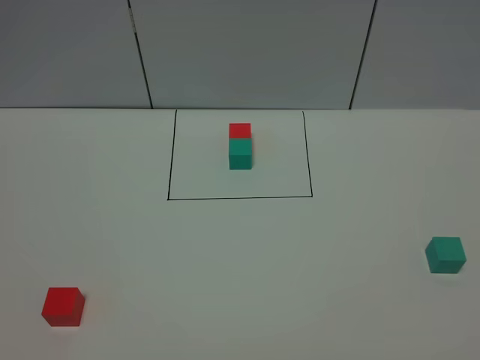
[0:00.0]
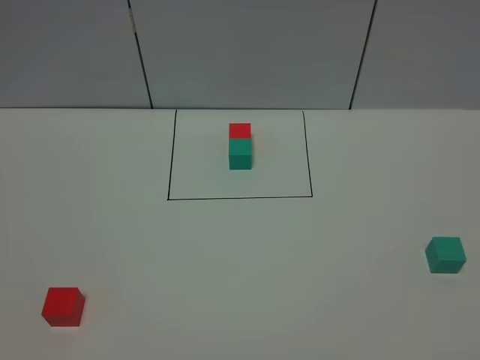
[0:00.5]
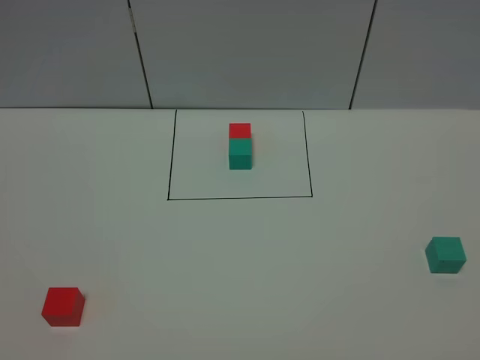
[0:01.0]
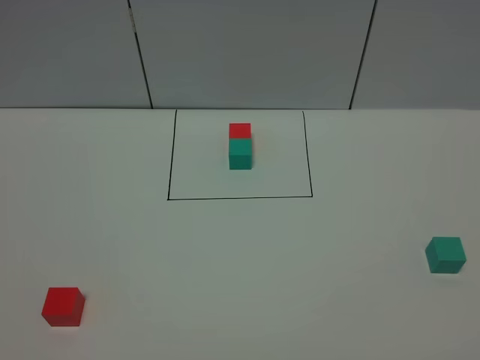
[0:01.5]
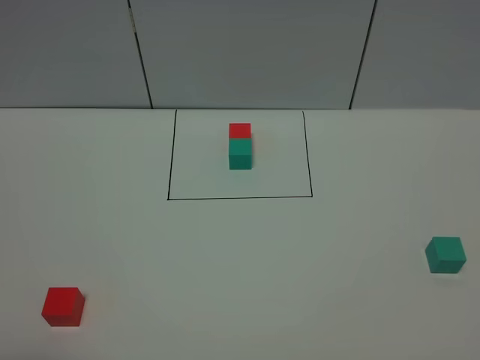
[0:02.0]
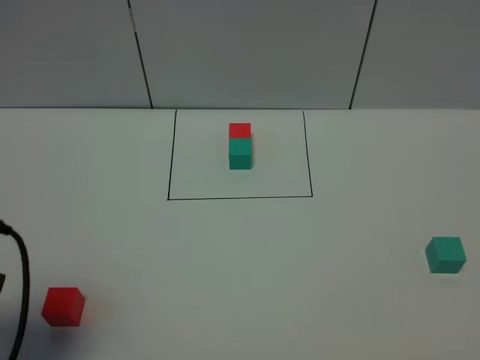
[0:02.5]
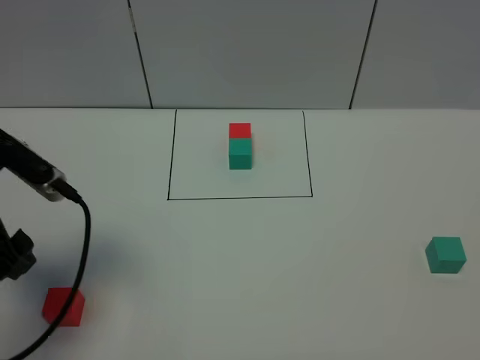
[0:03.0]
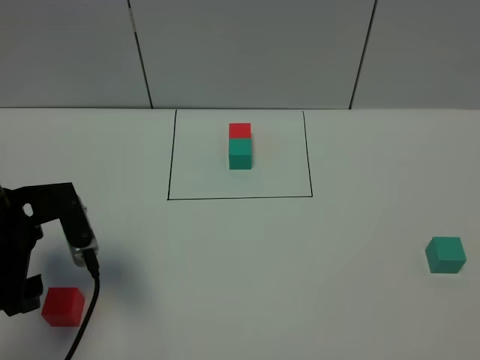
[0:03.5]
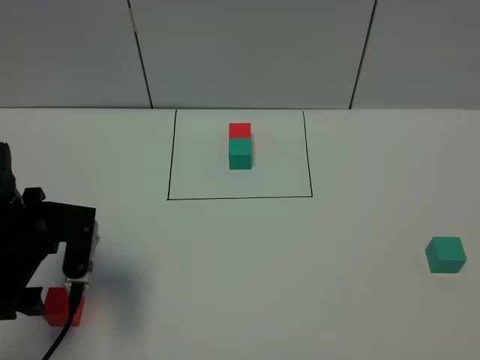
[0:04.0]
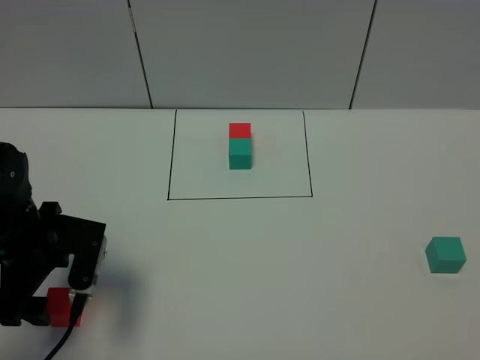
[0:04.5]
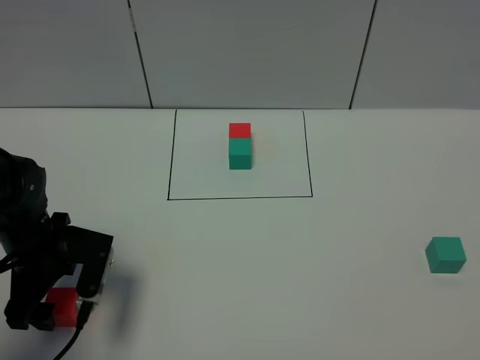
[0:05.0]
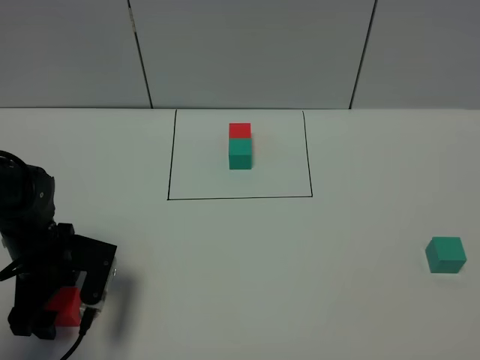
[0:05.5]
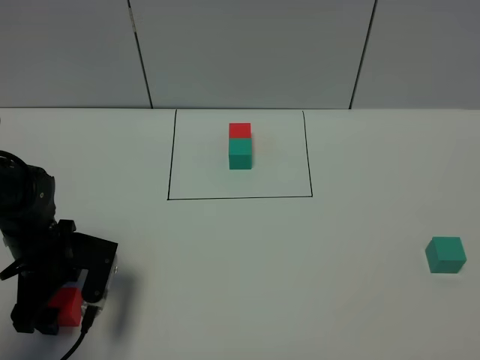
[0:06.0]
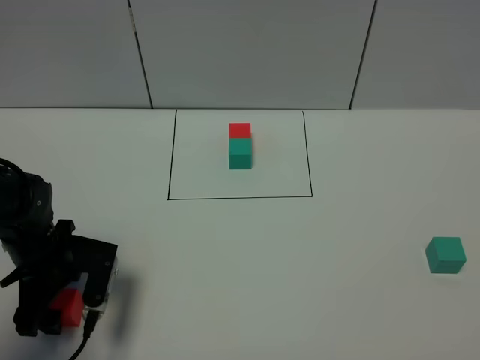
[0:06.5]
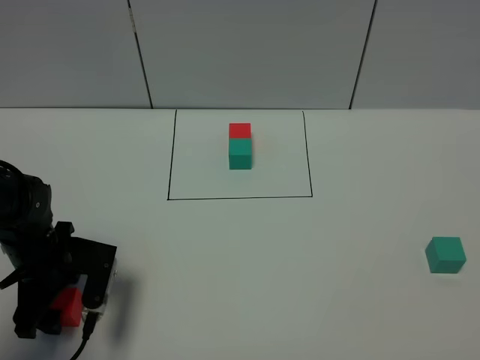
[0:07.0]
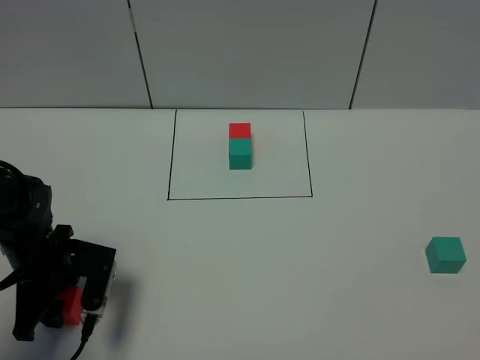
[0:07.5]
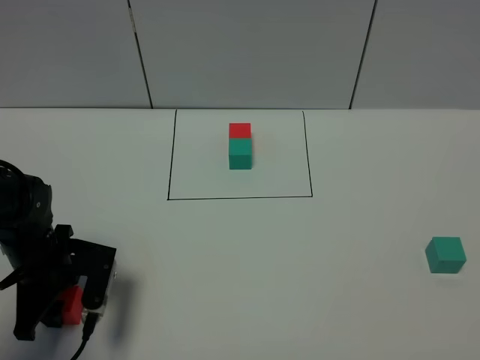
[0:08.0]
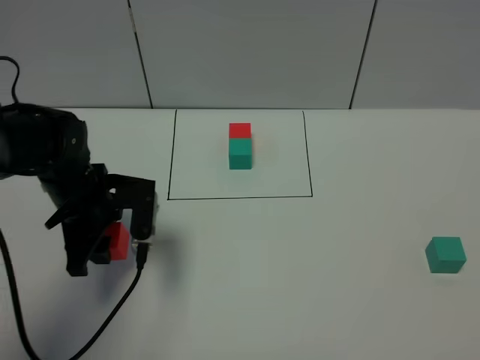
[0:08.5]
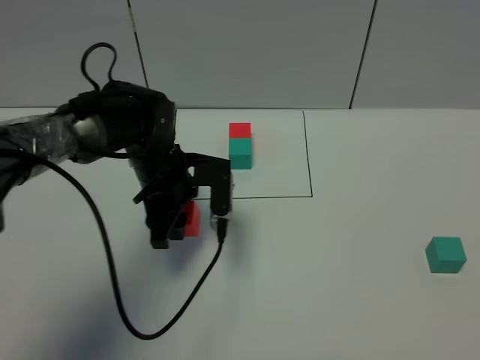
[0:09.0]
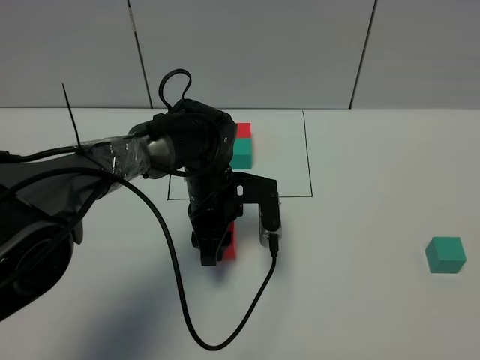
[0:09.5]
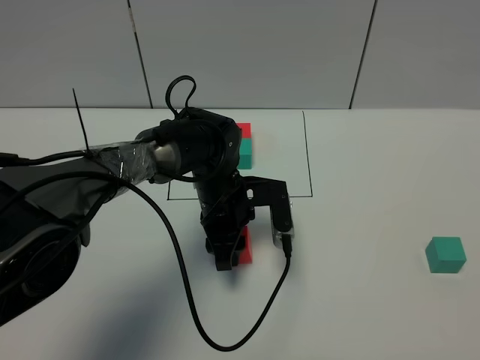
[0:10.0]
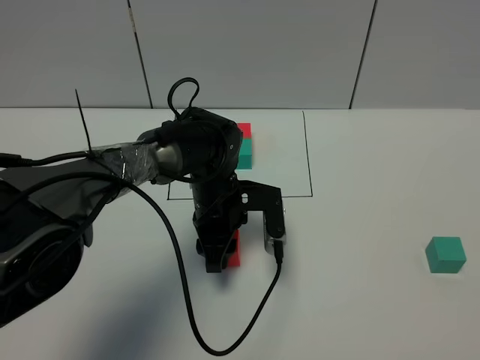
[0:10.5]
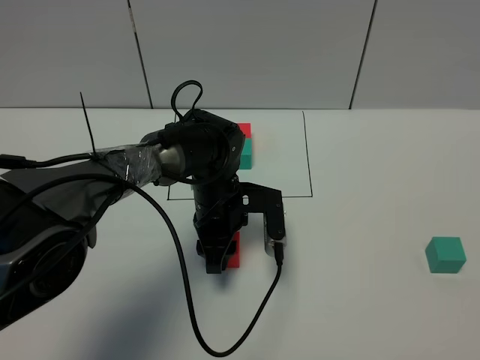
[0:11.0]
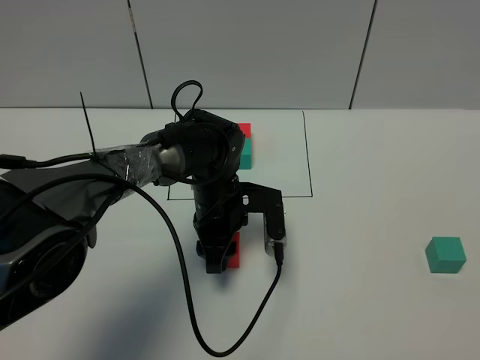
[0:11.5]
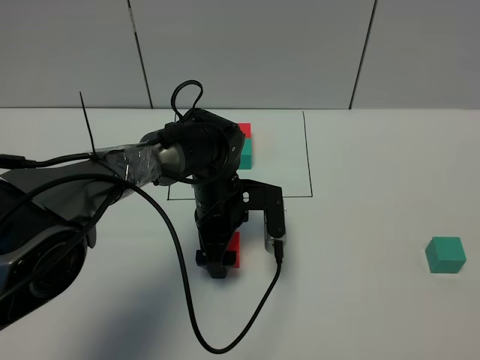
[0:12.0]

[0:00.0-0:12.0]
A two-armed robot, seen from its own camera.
Task of the whole recording: According to the building block template in front, assemble the scattered blocks together.
Step, 0:02.5 to 0:11.5: Put the red cube in the center of the table.
0:02.0 to 0:04.0: The left gripper heads forward, covering approximately 25 cm.
0:04.0 to 0:06.0: The left gripper goes about 10 cm downward.
0:06.0 to 0:08.0: The left gripper closes.
0:08.0 to 0:10.0: The left gripper travels to the right and forward by approximately 25 cm.
0:10.0 to 0:12.0: The left gripper opens up.

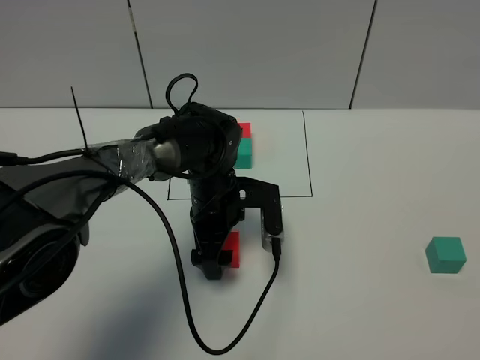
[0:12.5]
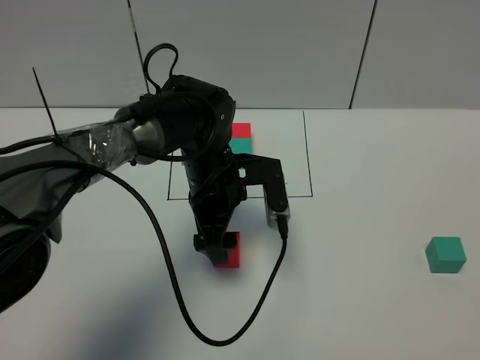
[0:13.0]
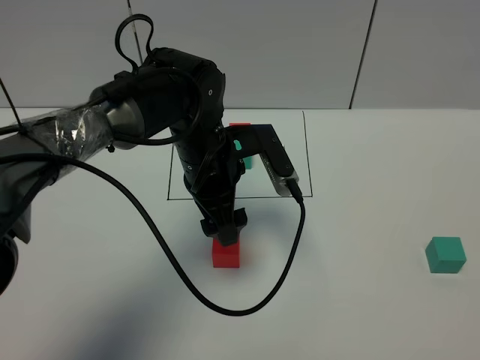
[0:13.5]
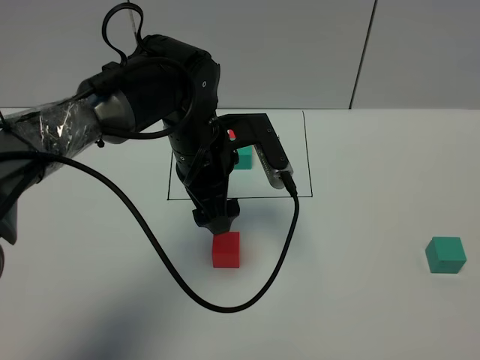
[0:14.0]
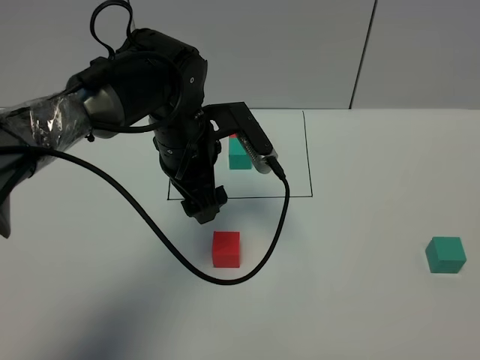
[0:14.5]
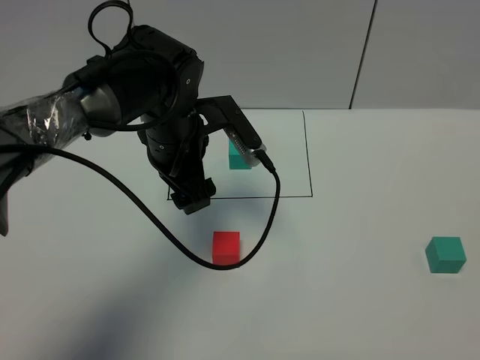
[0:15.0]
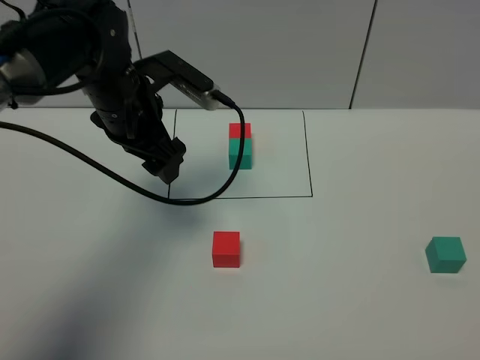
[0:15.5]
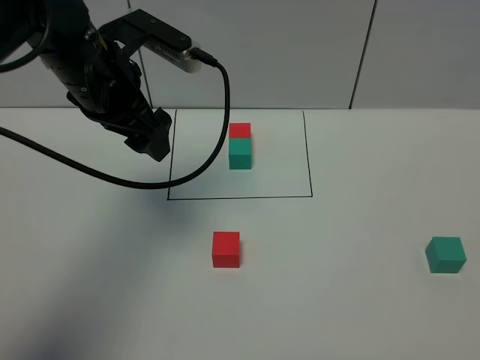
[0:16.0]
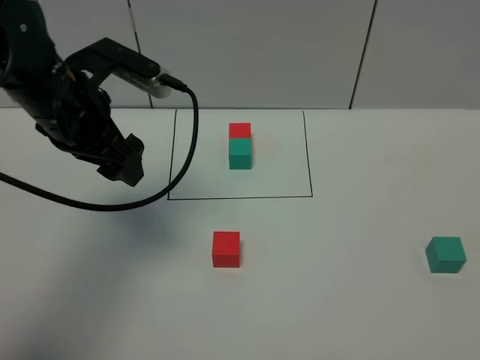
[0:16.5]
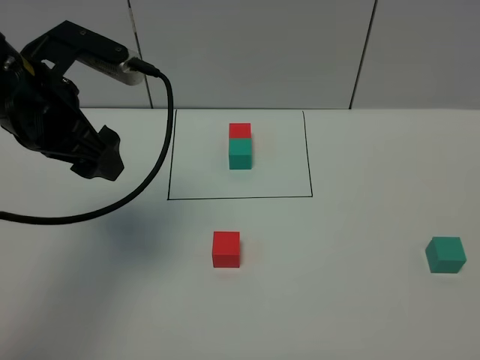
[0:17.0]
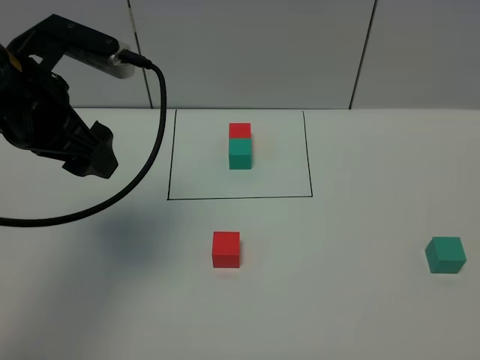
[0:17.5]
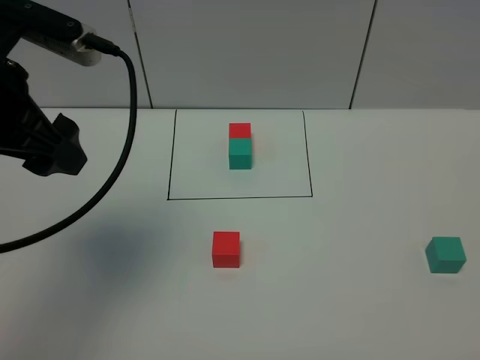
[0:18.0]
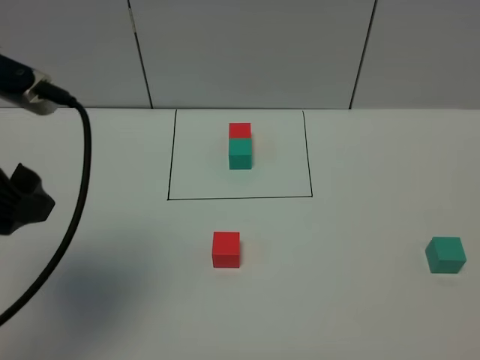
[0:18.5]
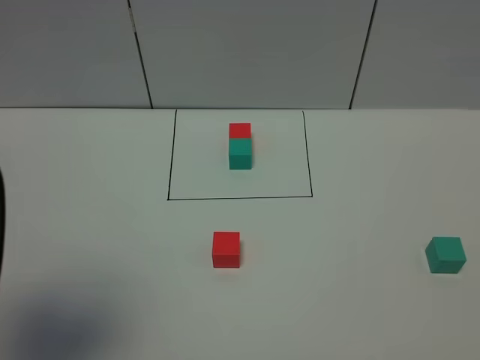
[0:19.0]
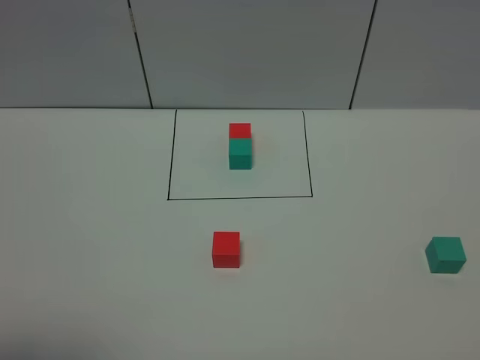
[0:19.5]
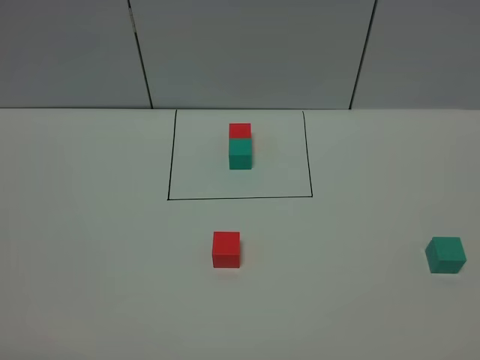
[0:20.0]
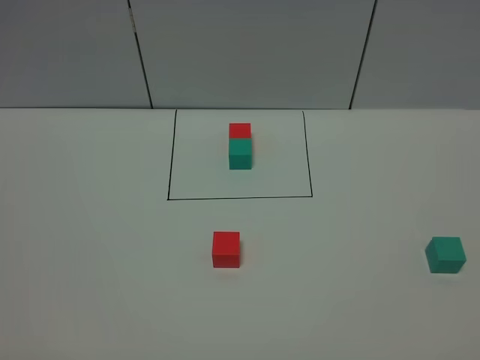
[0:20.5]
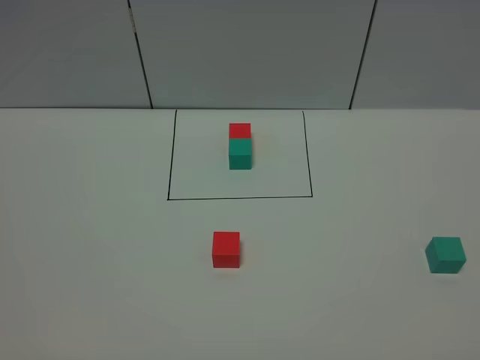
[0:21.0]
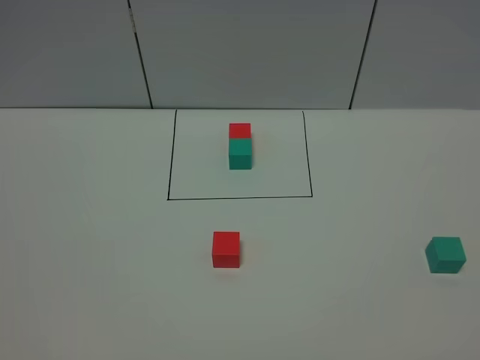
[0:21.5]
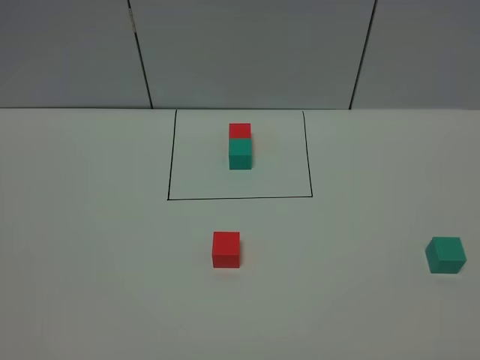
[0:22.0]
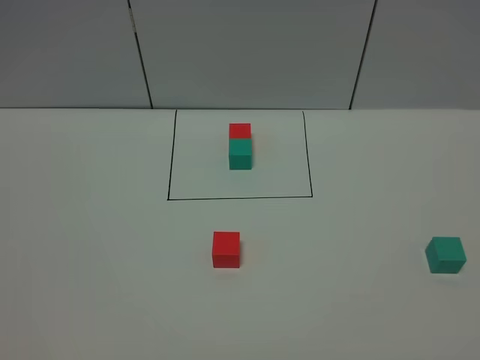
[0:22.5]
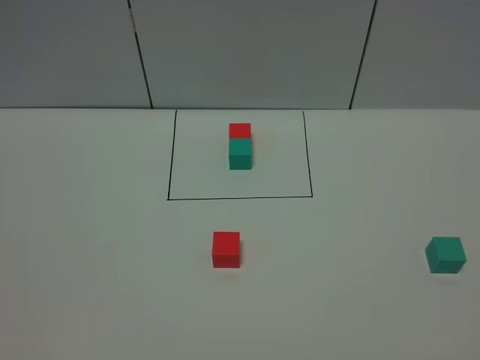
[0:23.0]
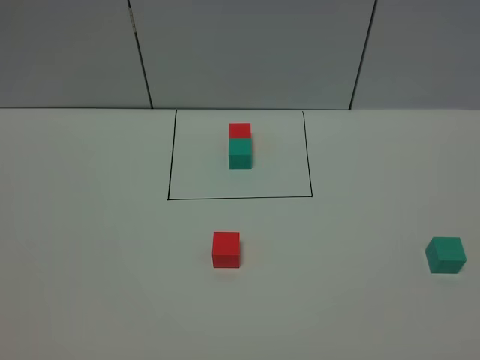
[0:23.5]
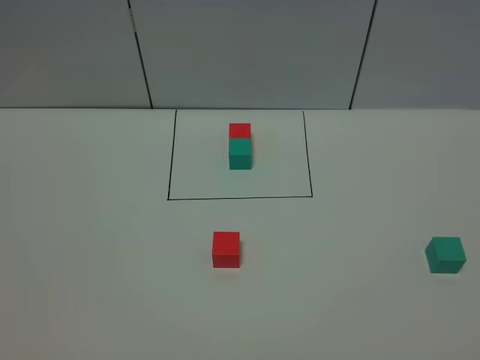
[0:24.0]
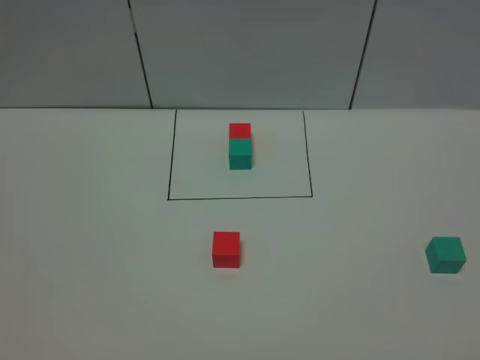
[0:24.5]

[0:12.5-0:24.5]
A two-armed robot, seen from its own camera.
Task of the whole recording: According to the building block template in front, assemble the scattered blocks together.
0:12.5 to 0:14.5: The left gripper is displaced upward by about 10 cm.
0:14.5 to 0:16.5: The left gripper goes about 15 cm to the left and upward.
0:16.5 to 0:18.5: The left gripper travels backward and upward by about 15 cm.
0:18.5 to 0:20.5: The left gripper goes about 20 cm backward.

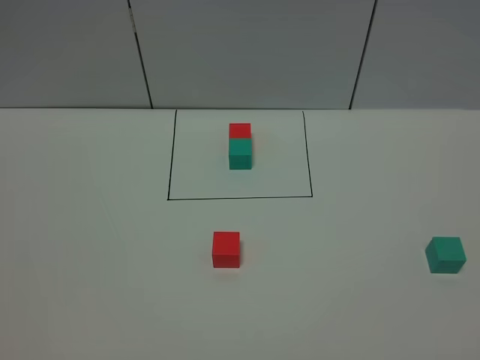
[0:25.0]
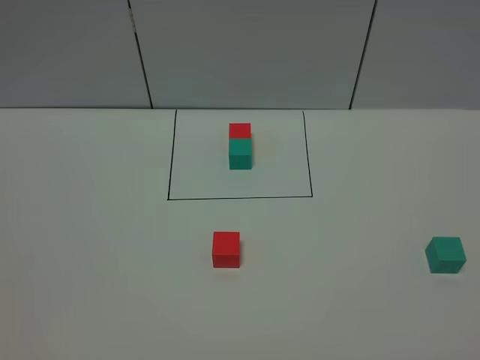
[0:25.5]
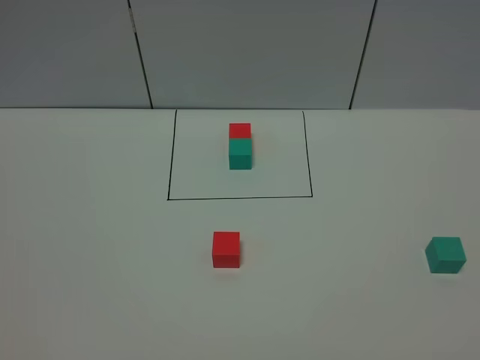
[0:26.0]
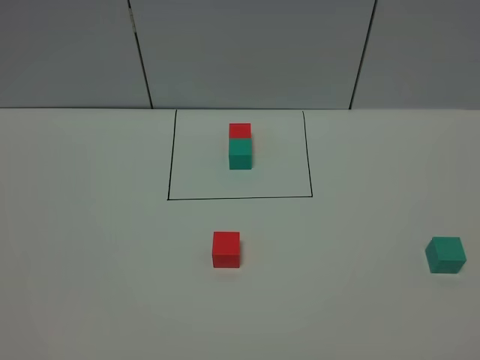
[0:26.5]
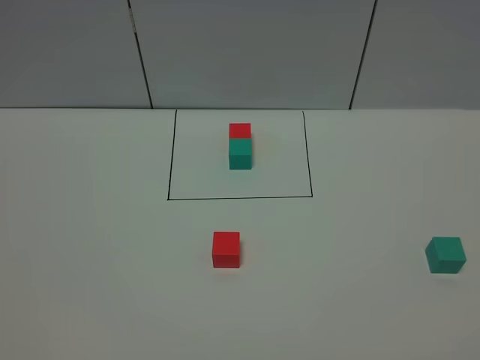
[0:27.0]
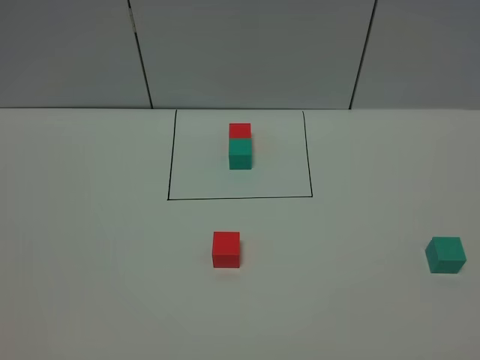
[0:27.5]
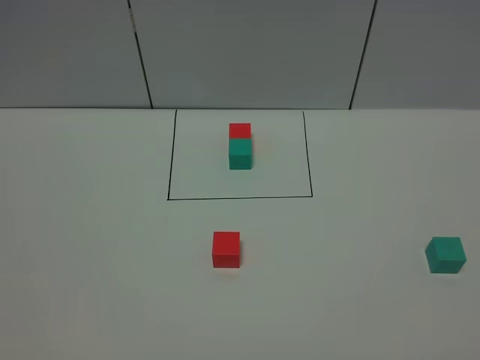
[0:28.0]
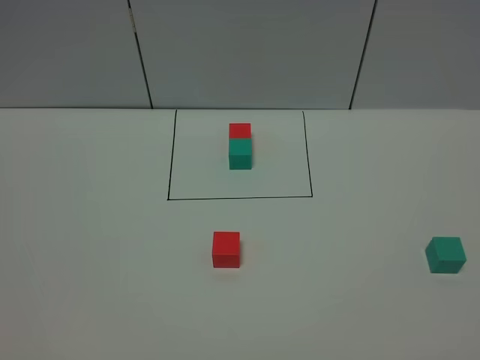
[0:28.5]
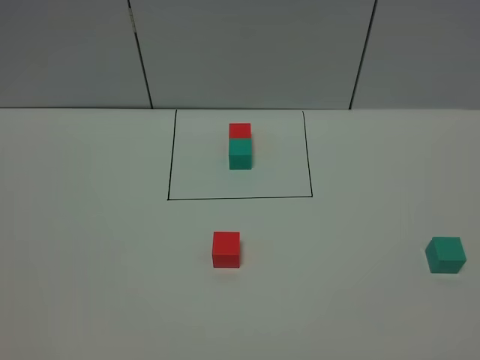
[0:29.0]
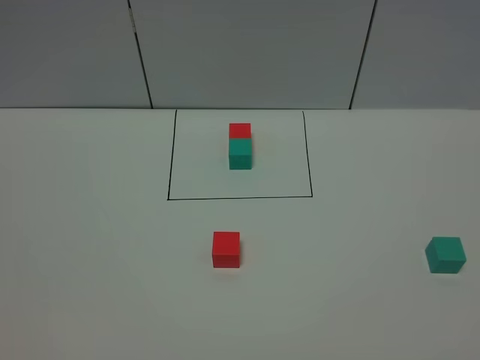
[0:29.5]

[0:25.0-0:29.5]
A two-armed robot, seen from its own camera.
Task of the whole recording: According to the building block template in front, assemble the scattered blocks together.
0:25.0 to 0:29.5: Neither gripper changes place.
